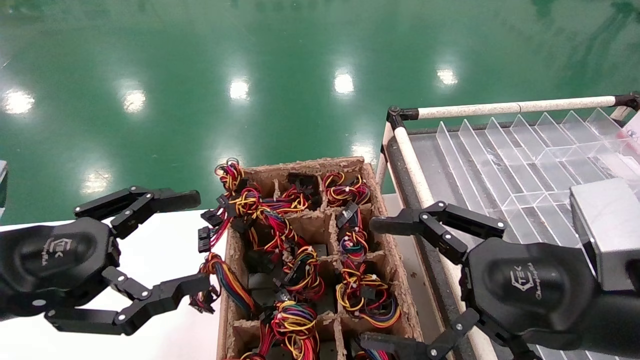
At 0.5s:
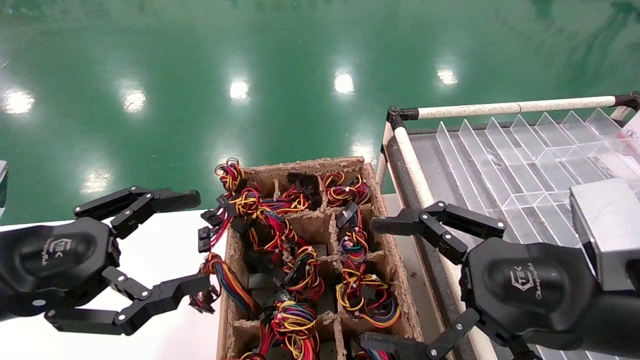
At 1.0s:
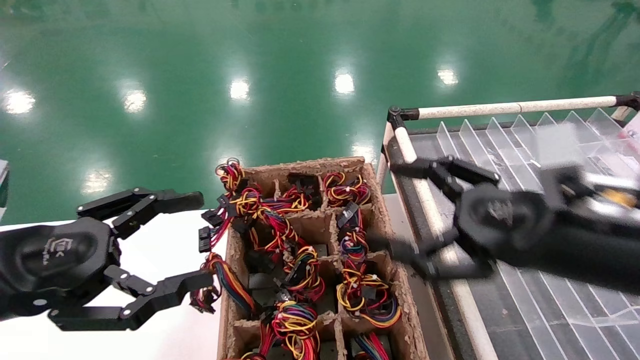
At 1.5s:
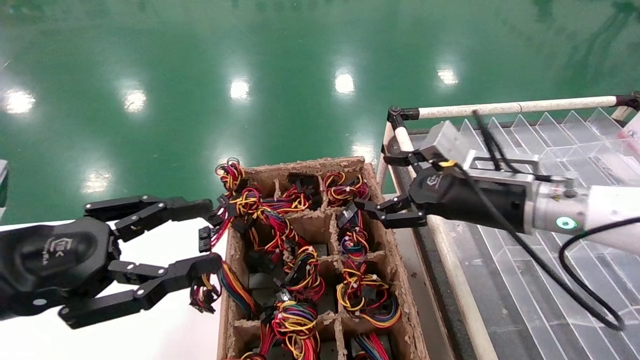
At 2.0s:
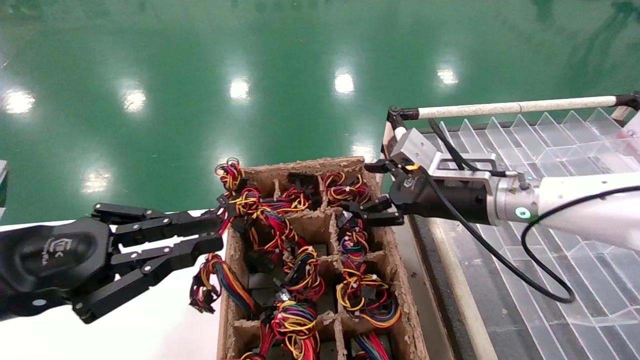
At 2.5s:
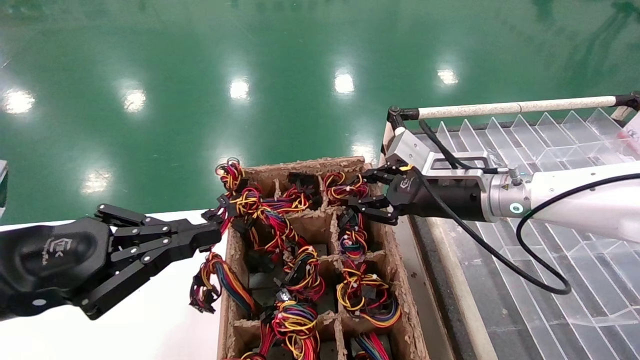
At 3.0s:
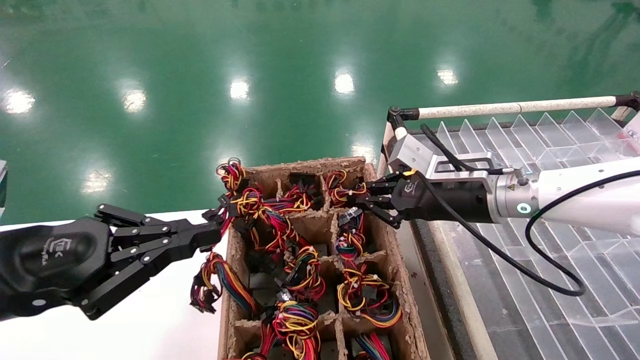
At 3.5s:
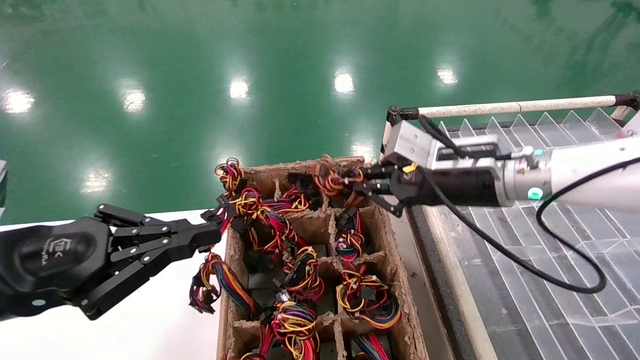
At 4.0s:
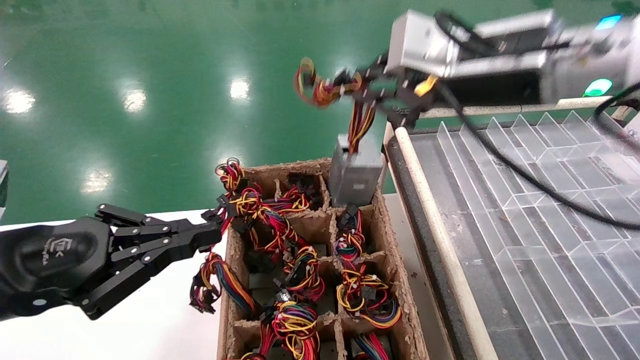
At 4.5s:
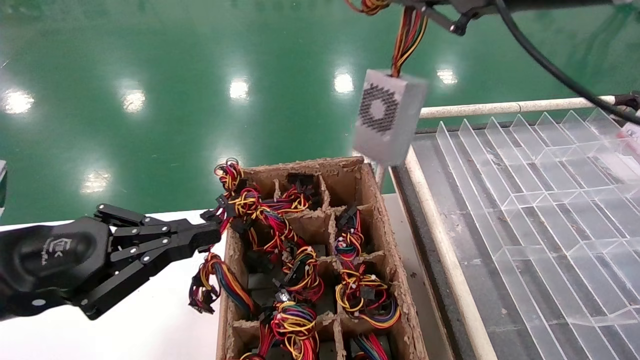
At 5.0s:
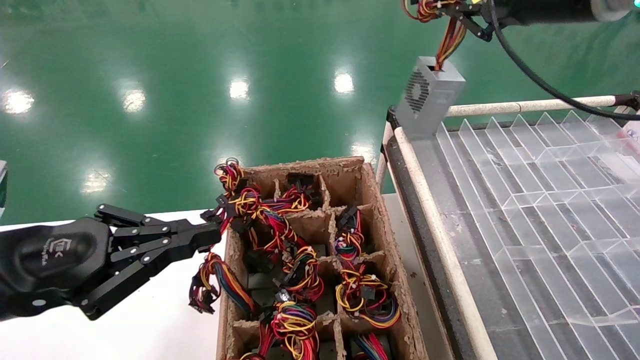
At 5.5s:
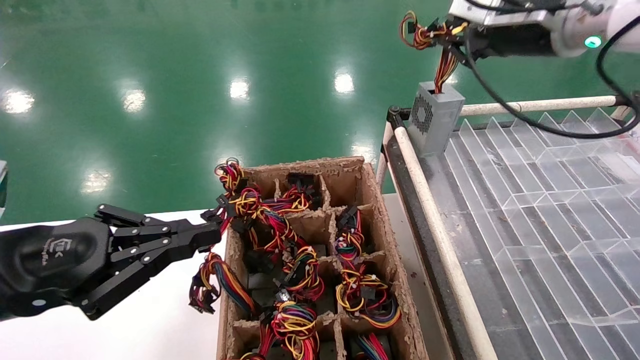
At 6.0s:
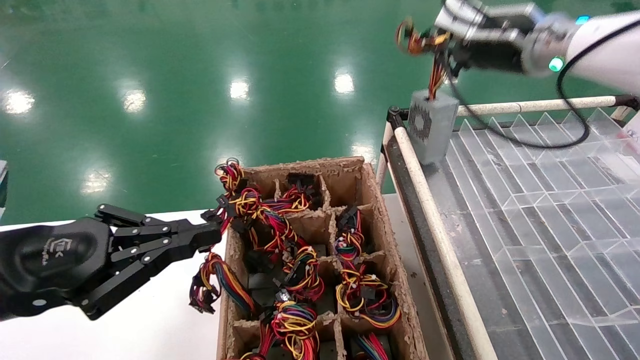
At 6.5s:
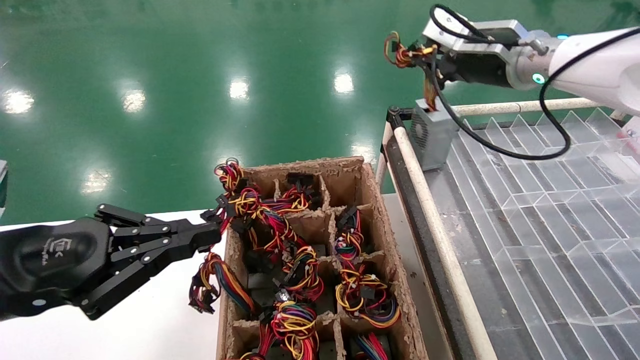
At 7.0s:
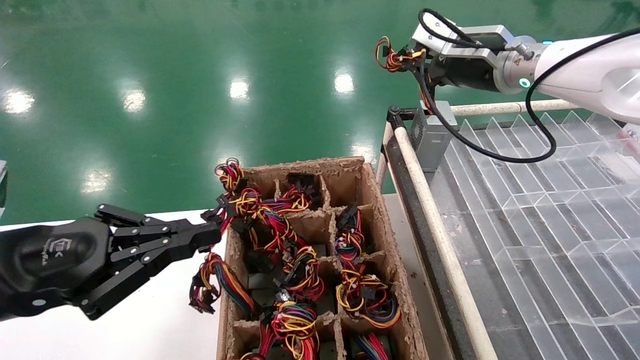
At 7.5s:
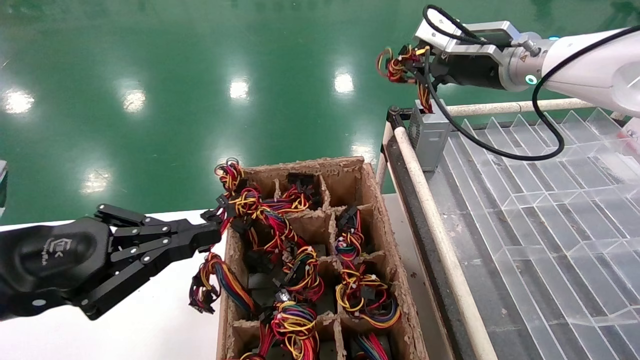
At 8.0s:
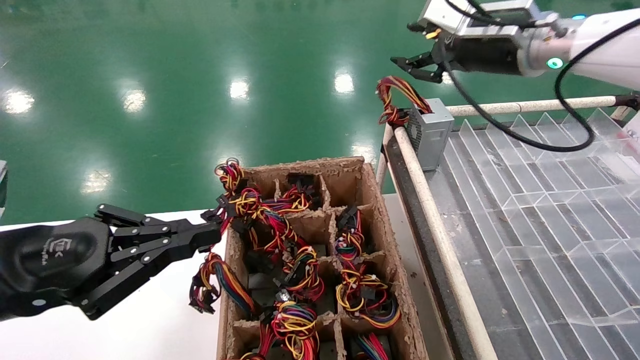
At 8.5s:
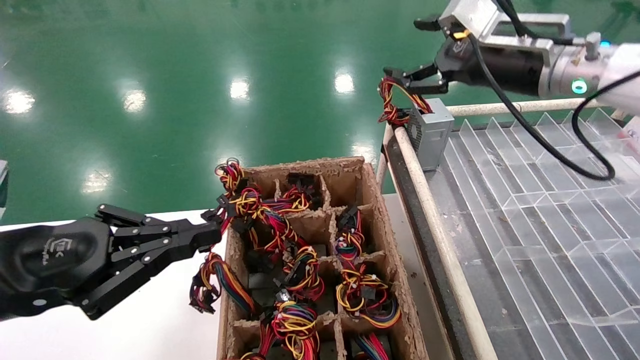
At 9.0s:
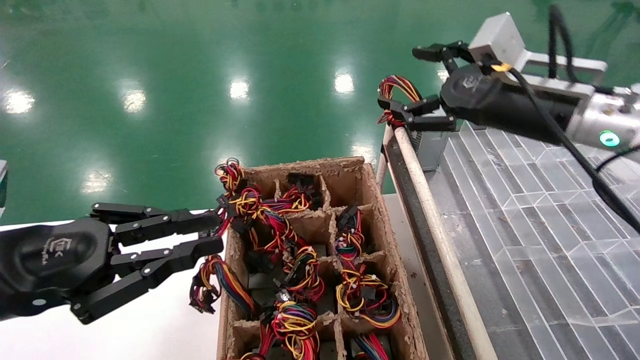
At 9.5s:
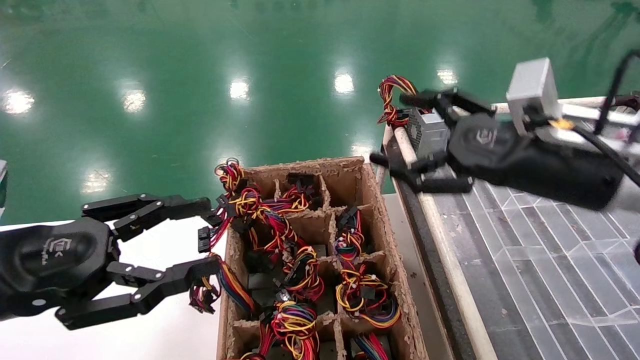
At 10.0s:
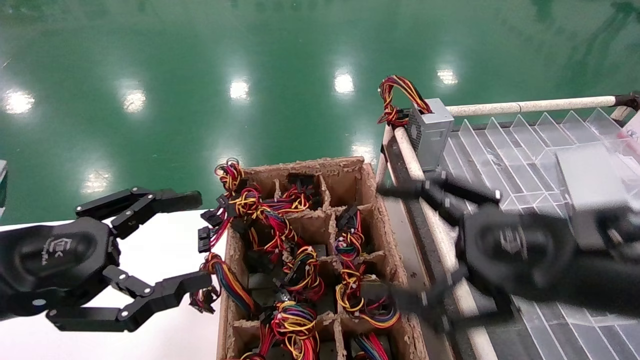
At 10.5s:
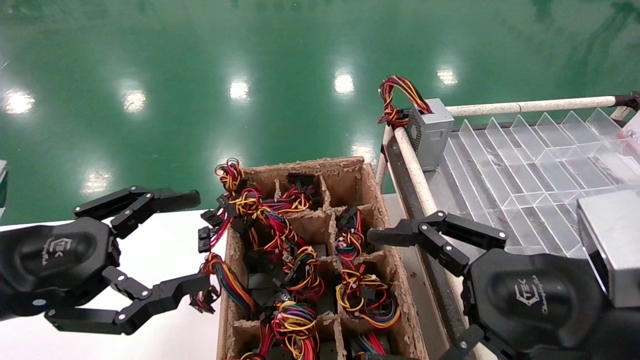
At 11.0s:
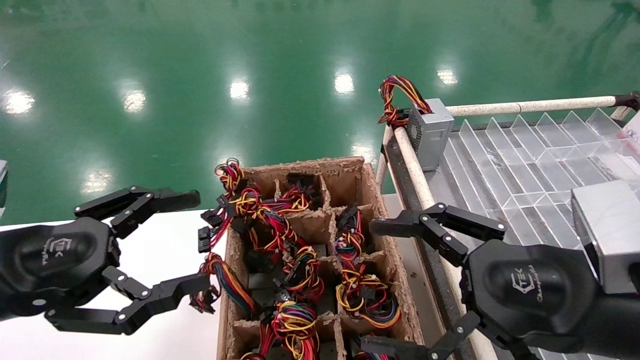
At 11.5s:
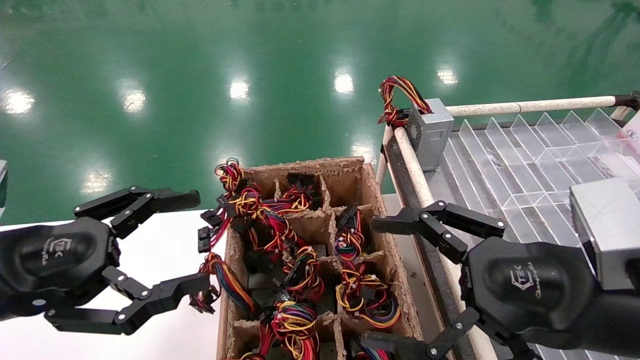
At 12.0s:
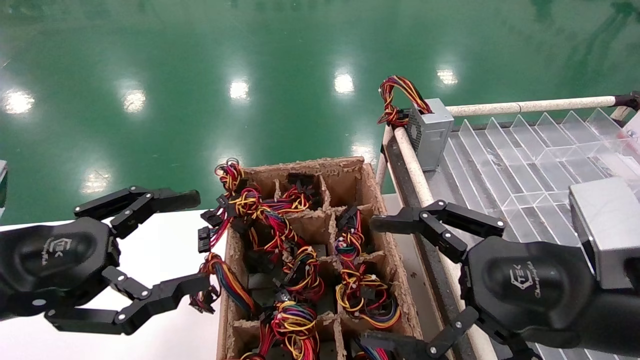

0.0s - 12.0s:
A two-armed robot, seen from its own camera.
Step, 1.5s - 3.0s: Grab the main unit power supply from the containment box.
Step, 3.5s - 8.0s: Place the main unit power supply in the designated area.
0.0s - 2.0s: The right gripper moves forward, some 20 cm. The left gripper closes.
2.0s - 4.0s: The right gripper shifts about 20 cm upward and backward, and closes.
4.0s - 6.0s: The right gripper travels forward and to the right by roughly 15 cm.
6.0s - 8.0s: The right gripper opens up.
8.0s - 10.0s: The left gripper opens, while the right gripper is displaced backward and downward by roughly 30 cm, and opens.
10.0s - 12.0s: There are only small adjustments of the grippers.

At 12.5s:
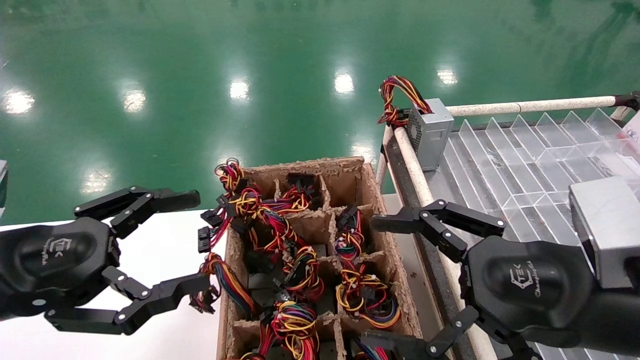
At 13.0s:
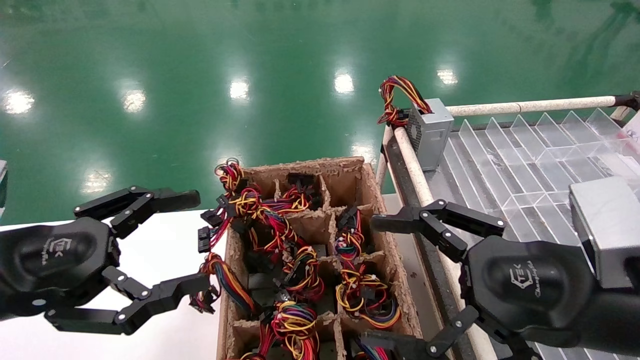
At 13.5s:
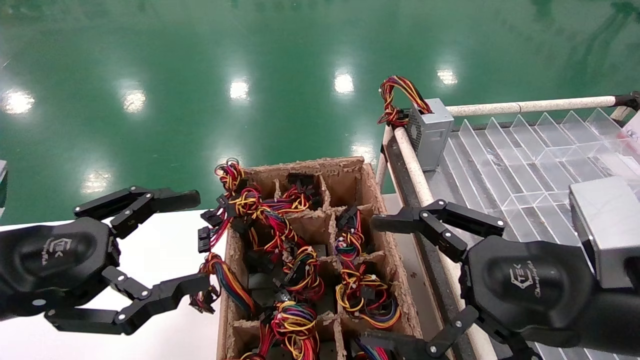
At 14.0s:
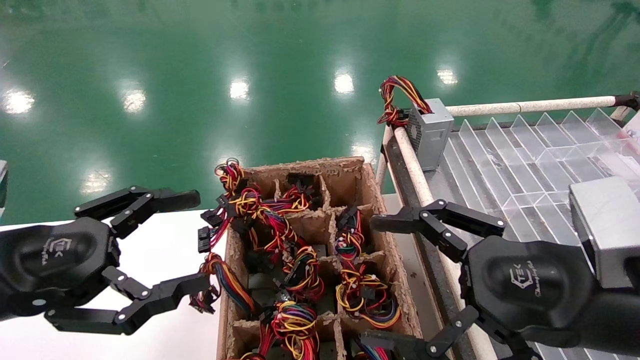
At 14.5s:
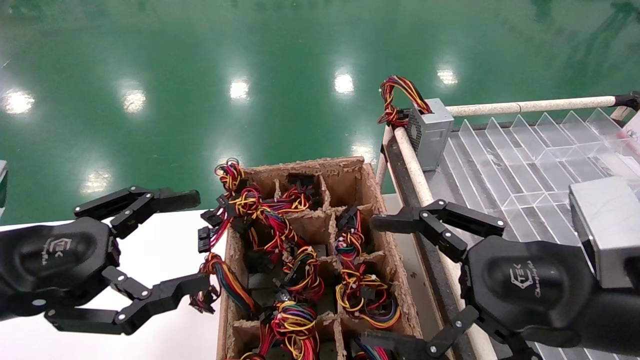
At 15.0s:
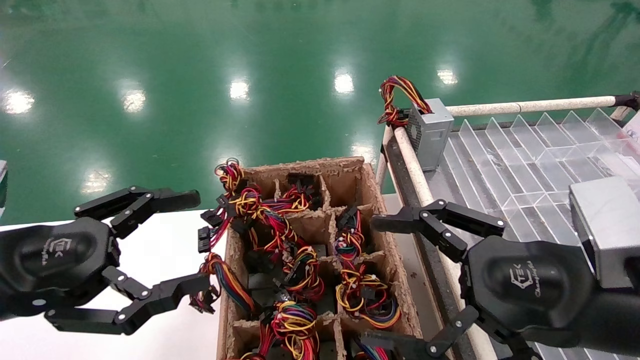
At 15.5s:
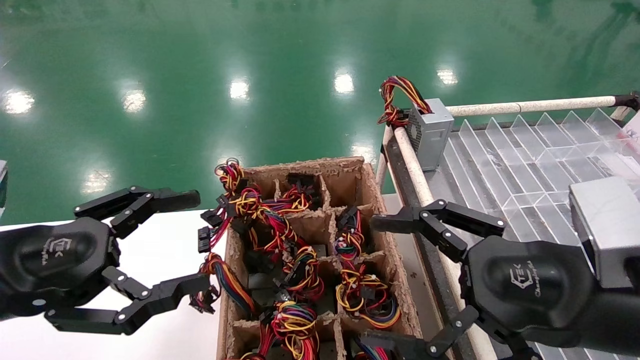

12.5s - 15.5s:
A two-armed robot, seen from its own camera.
12.5s - 15.5s: Both grippers stay put.

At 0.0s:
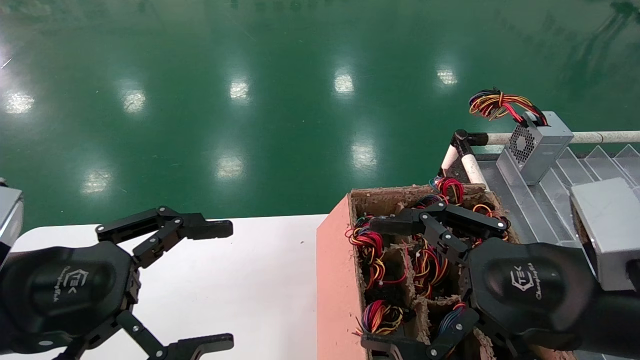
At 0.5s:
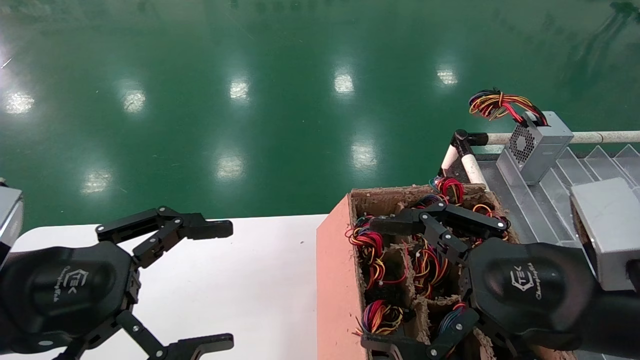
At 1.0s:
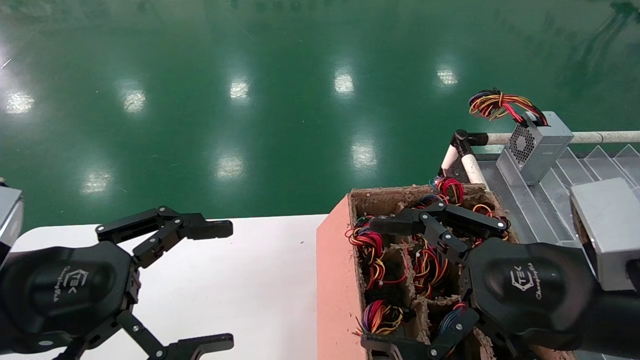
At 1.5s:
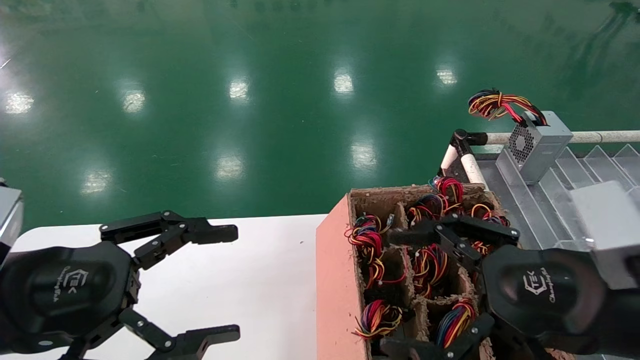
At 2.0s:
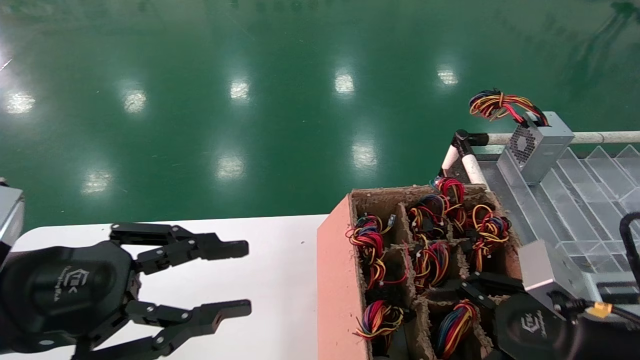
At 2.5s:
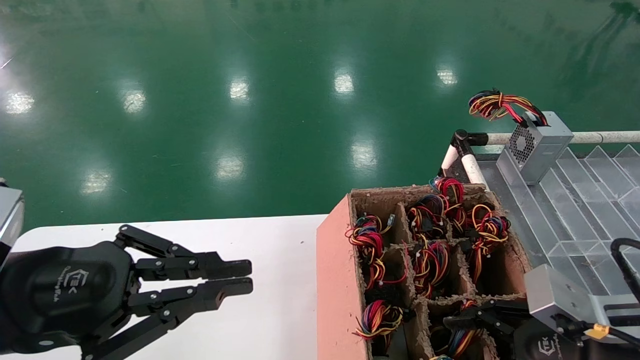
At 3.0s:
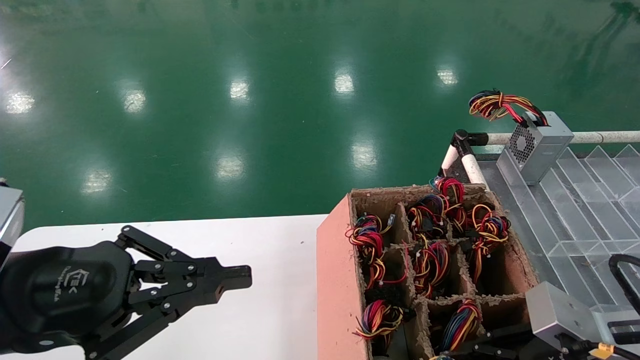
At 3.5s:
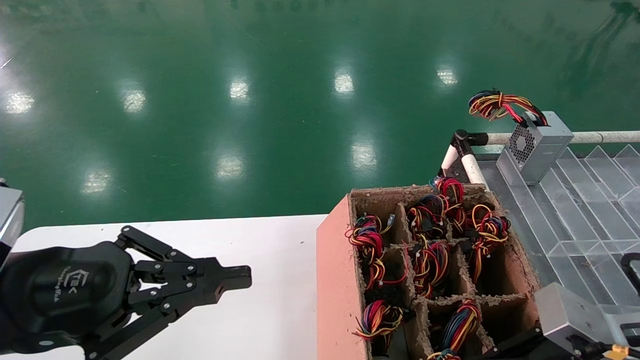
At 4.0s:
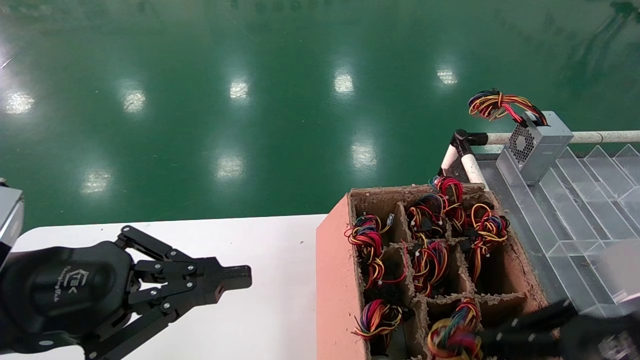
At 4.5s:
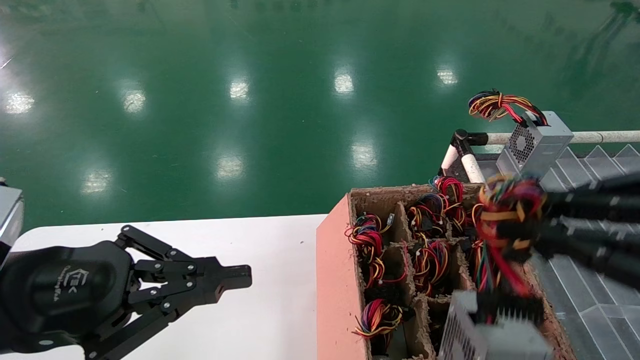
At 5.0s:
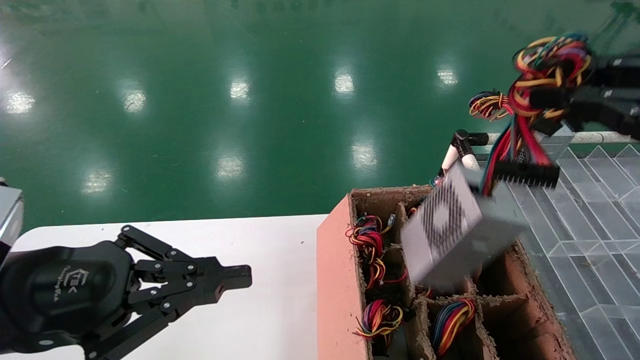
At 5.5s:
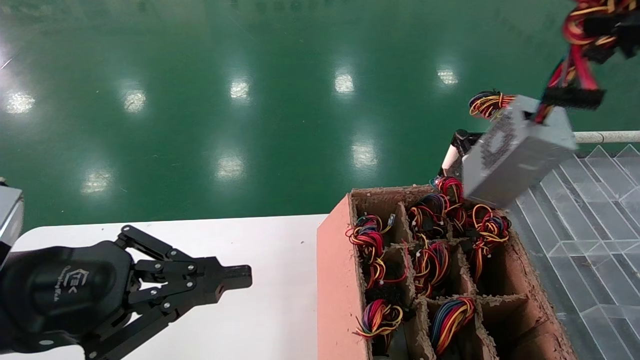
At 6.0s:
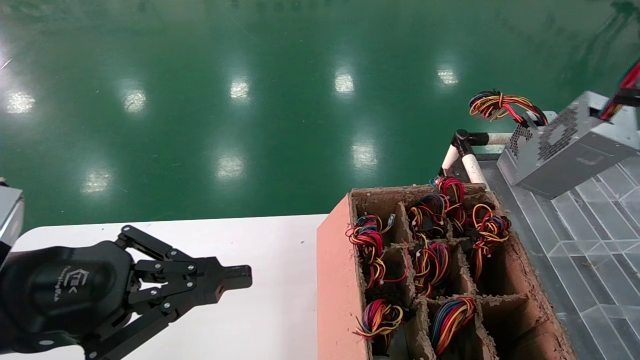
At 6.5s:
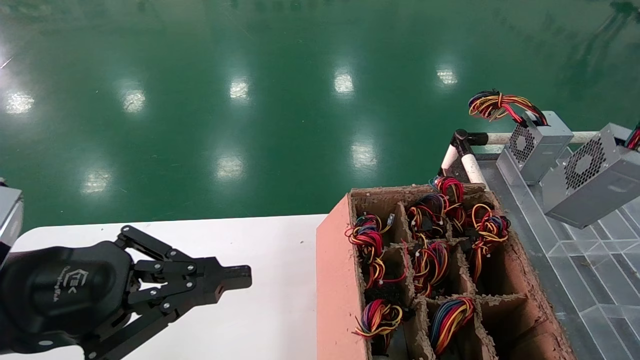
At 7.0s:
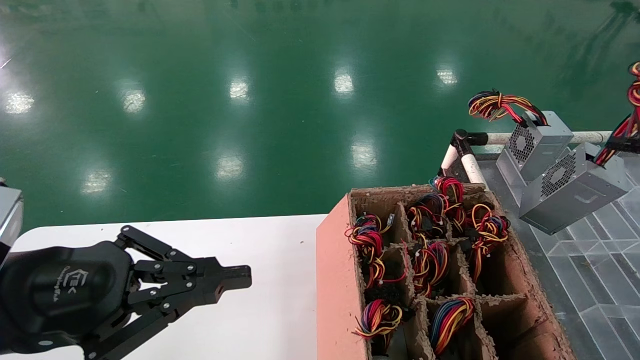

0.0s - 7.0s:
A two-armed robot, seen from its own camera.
Step, 2.0s - 3.5s: Grab the main unit power supply from the containment box.
0.0s - 2.0s: The left gripper closes its fingers; the right gripper ends up some 5 cm from where it was.
2.0s - 3.5s: The left gripper closes its fingers. Meanwhile the right gripper closes up.
3.5s - 5.0s: The right gripper goes roughly 20 cm upward.
5.0s - 7.0s: The right gripper goes approximately 15 cm to the right and forward.
